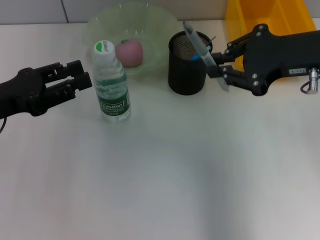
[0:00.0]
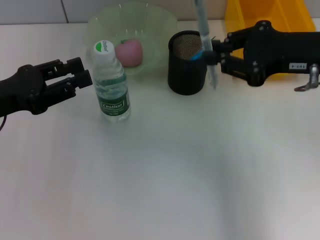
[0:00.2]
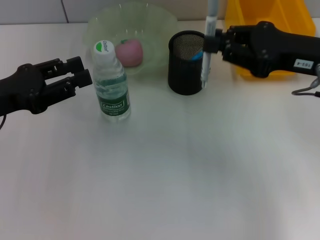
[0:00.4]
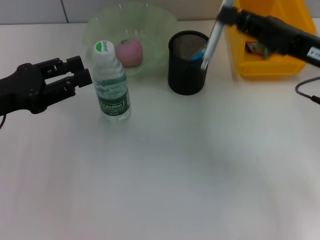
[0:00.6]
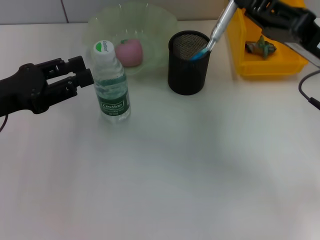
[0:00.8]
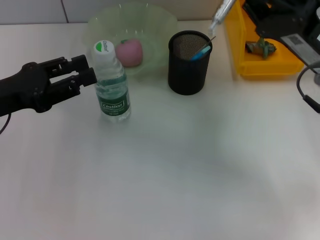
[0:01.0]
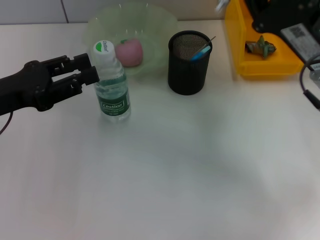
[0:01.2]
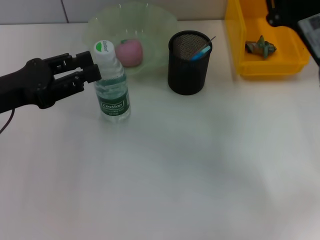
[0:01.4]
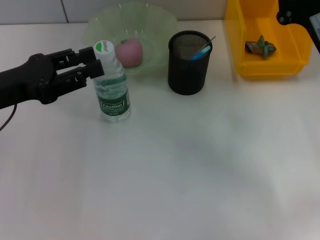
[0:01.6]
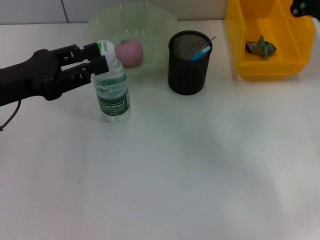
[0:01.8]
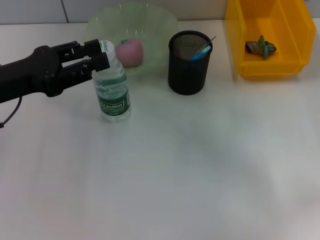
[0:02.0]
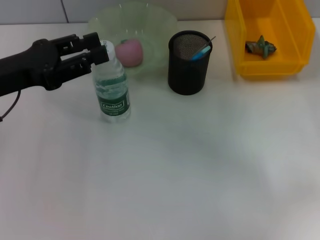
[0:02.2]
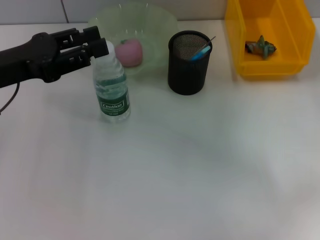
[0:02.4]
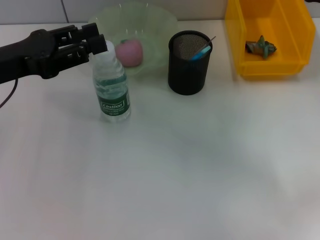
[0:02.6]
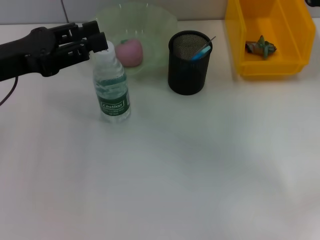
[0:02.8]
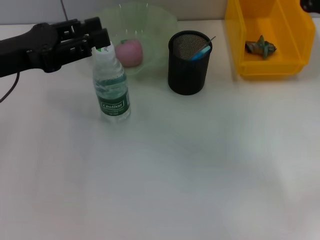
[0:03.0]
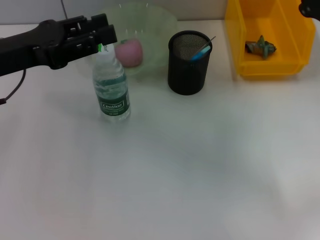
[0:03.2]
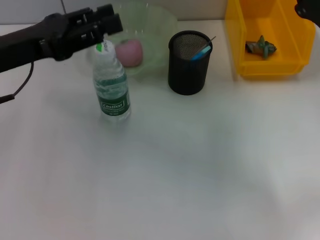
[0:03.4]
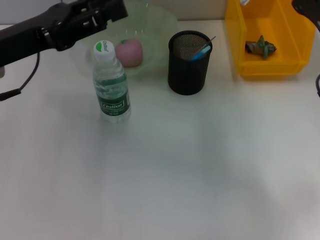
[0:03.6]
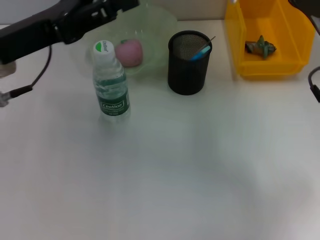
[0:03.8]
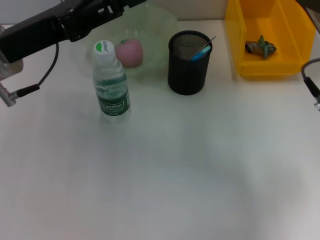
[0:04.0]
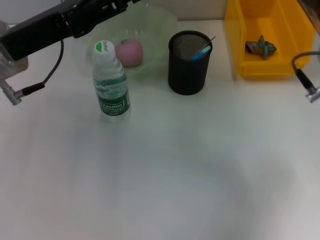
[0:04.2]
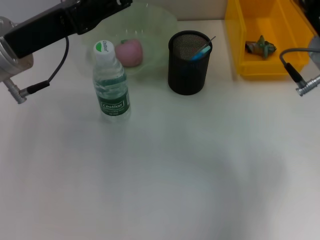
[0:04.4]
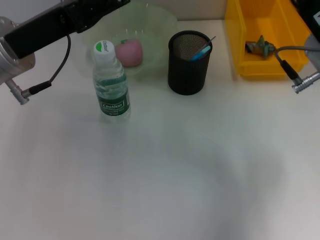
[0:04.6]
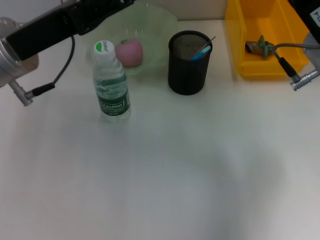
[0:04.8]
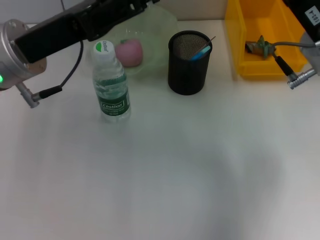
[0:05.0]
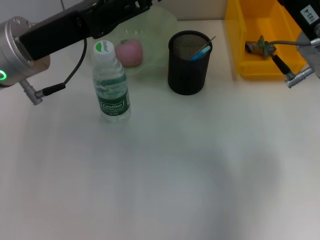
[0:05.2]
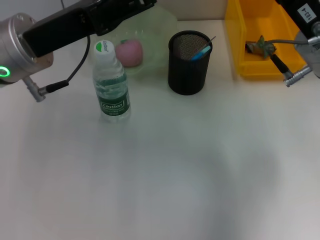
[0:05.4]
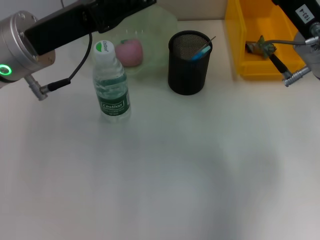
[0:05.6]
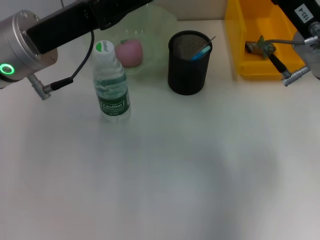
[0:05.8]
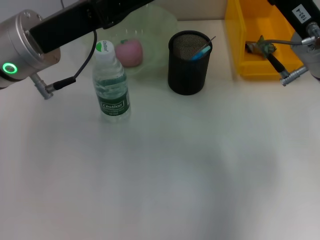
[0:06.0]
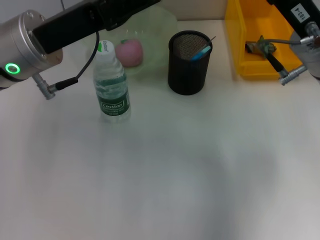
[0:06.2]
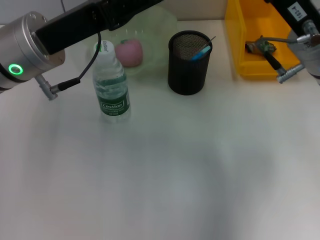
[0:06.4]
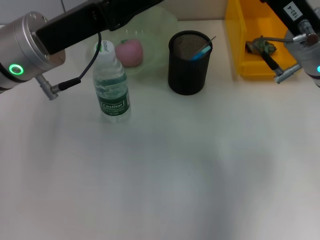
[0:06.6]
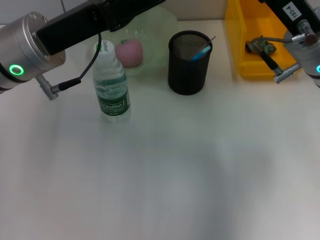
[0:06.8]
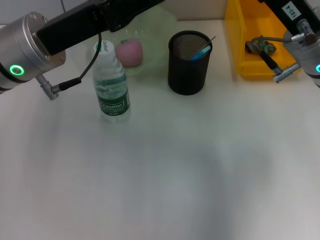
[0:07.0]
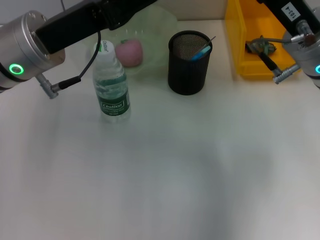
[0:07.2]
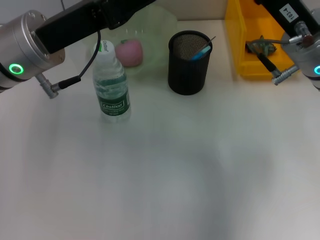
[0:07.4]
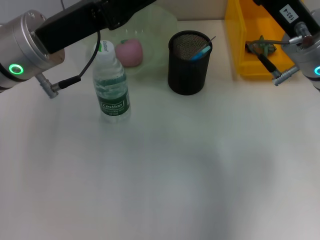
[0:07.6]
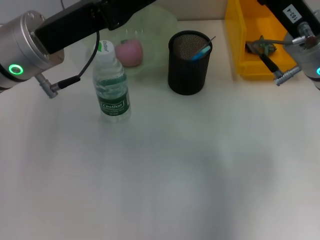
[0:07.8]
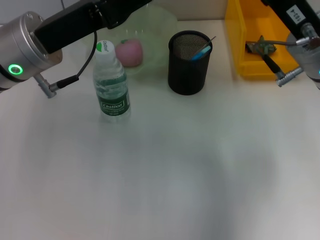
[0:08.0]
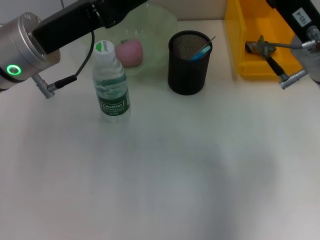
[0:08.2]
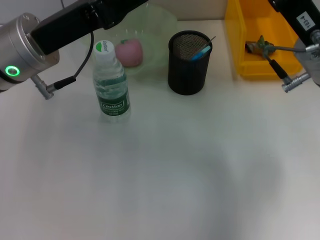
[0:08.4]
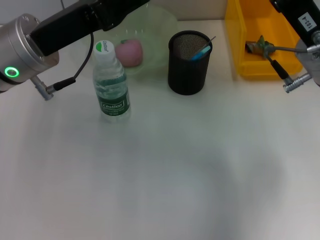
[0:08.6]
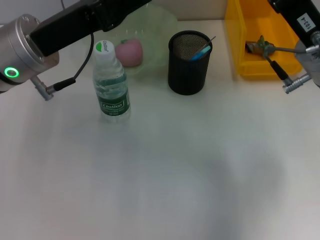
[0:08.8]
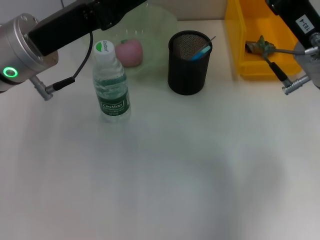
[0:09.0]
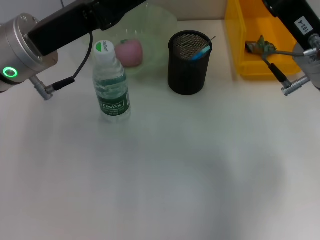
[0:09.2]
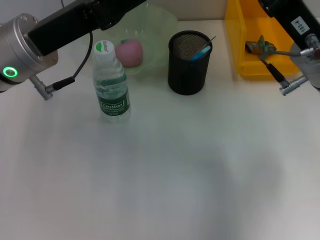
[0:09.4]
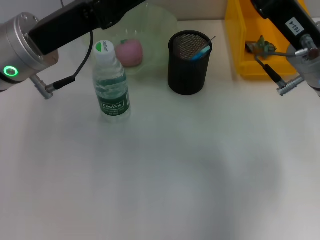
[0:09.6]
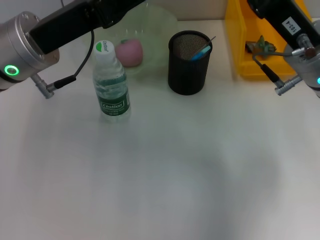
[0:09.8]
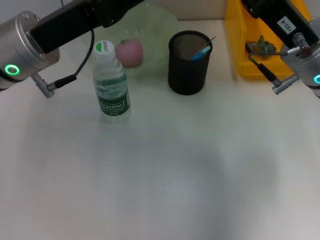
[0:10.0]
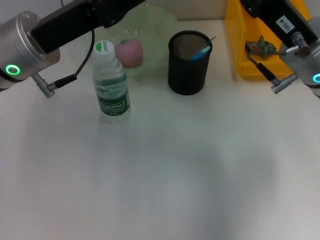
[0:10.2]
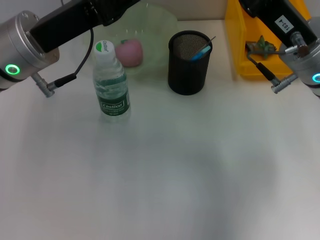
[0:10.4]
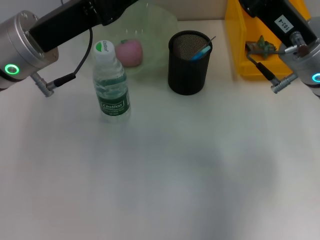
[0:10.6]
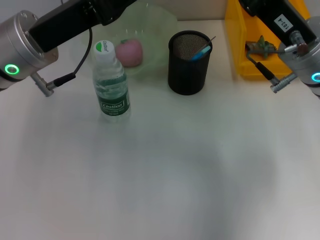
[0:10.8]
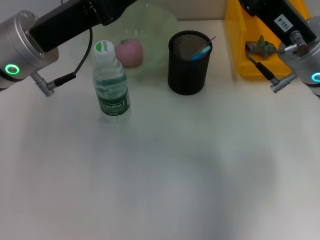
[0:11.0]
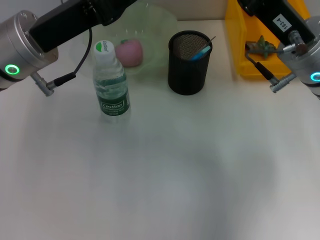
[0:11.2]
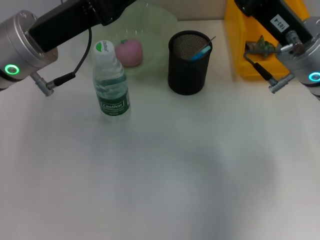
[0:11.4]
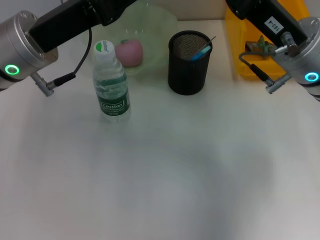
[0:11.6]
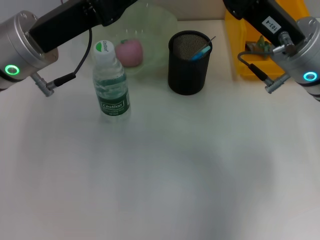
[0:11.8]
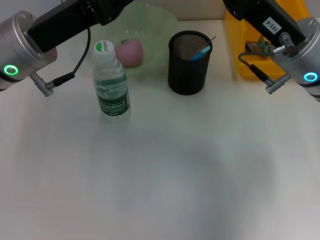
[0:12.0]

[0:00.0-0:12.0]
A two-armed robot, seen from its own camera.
0:00.0 to 0:01.6: The right gripper moves downward, approximately 10 cm.
0:03.0 to 0:04.4: The left gripper travels to the right by roughly 5 cm. The right gripper goes some 5 cm to the left.
0:04.4 to 0:06.0: There are only small adjustments of the grippers.
0:06.0 to 0:07.6: Neither gripper changes place.
0:07.6 to 0:09.0: The grippers stay close to where they were, moving slightly.
0:09.0 to 0:10.4: Neither gripper changes place.
0:10.4 to 0:12.0: The two grippers keep their place.

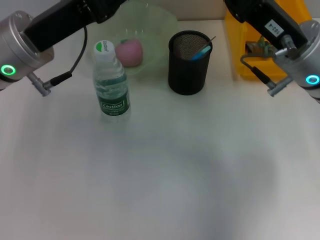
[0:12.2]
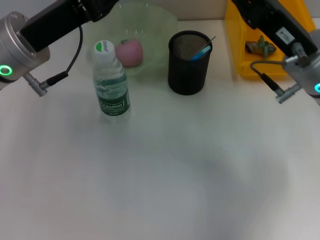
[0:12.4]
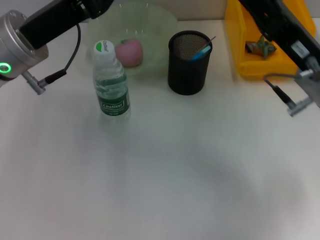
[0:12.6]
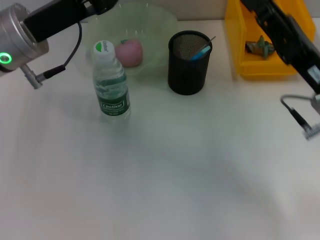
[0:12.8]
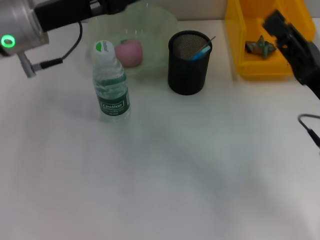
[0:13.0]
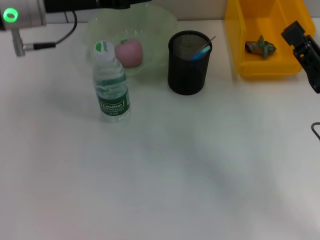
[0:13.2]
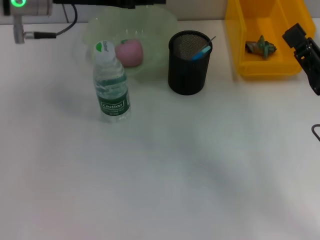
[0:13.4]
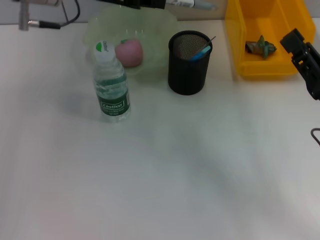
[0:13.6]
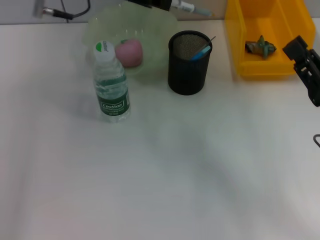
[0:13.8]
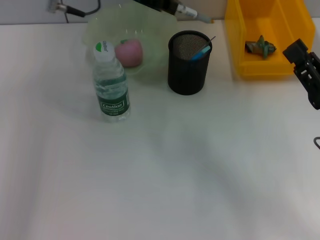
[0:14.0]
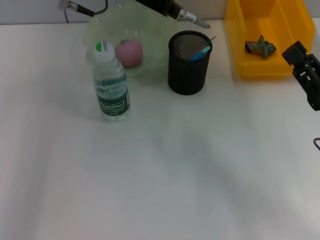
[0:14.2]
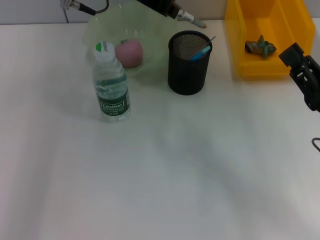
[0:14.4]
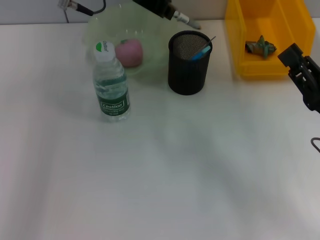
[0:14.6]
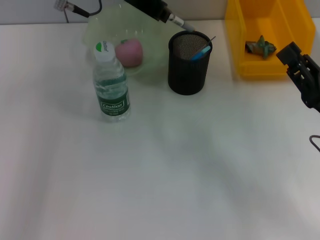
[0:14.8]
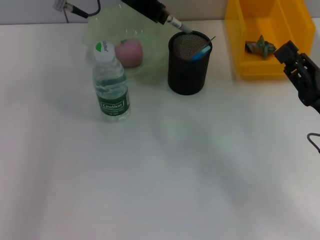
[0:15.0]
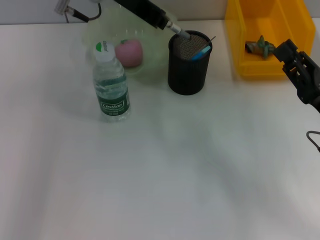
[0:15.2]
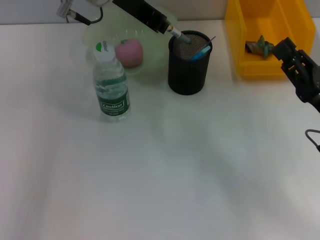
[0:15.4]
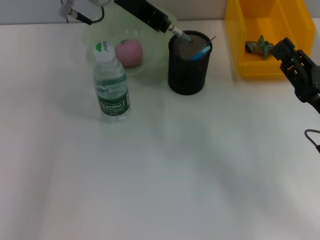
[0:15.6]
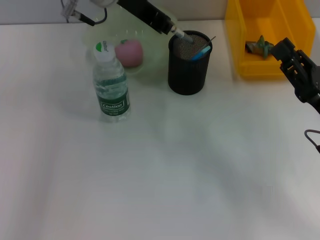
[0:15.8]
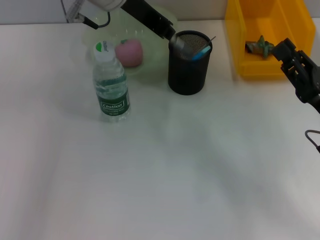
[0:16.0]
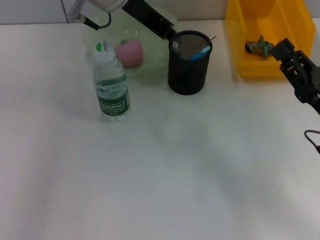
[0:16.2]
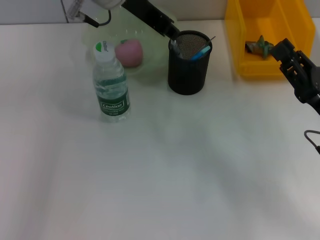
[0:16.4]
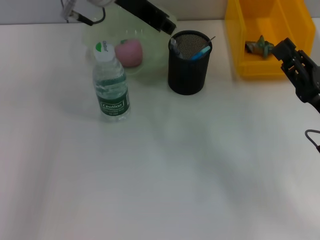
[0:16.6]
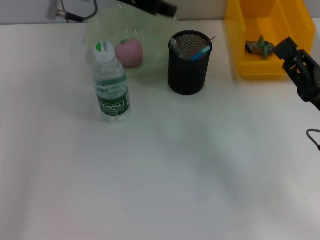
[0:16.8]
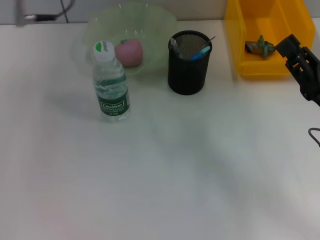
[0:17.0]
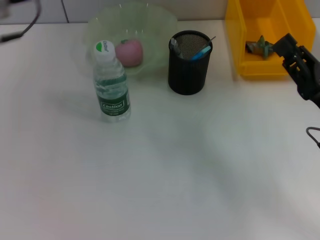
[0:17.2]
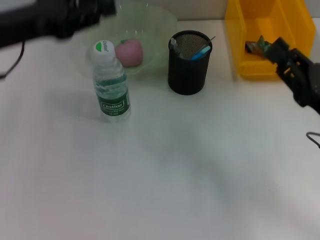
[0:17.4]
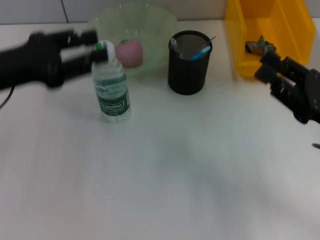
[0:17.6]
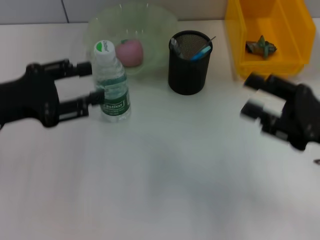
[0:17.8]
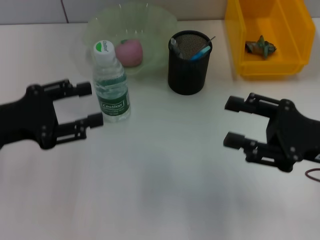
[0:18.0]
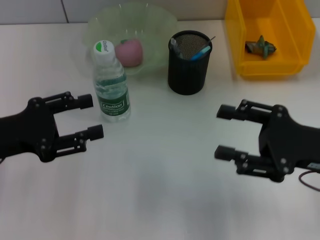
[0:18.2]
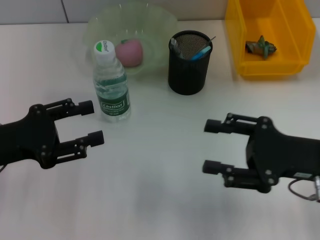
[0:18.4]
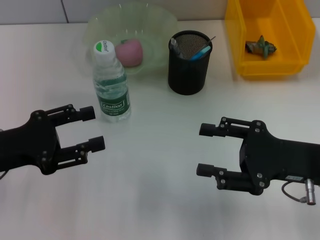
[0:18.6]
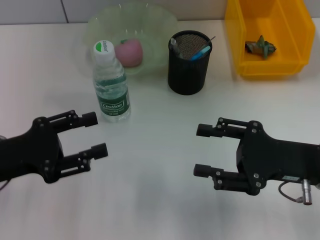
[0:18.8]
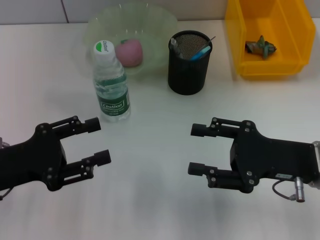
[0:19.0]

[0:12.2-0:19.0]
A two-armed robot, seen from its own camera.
Step, 0:13.4 to 0:16.8: Place the gray spring-action pen into the pen holder with the left hand.
0:12.2 to 0:13.6: The left gripper moves upward and forward, roughly 10 cm. Meanwhile the right gripper moves to the right, backward and downward, some 15 cm.
0:13.6 to 0:15.0: The left gripper goes about 5 cm to the right.
0:15.0 to 0:16.2: The grippers make only small movements.
0:16.2 to 0:17.6: The left gripper moves to the left and backward, approximately 20 cm, and opens its fingers.
0:17.6 to 0:19.0: The right gripper opens. The left gripper moves downward and backward, some 15 cm.

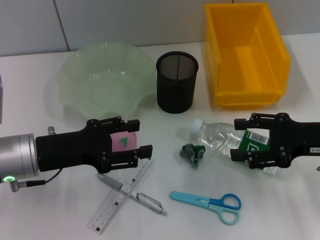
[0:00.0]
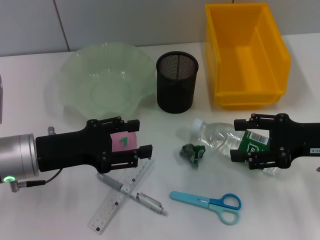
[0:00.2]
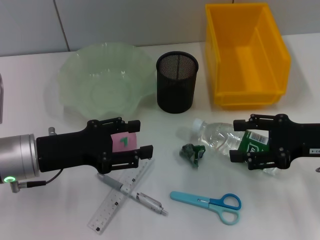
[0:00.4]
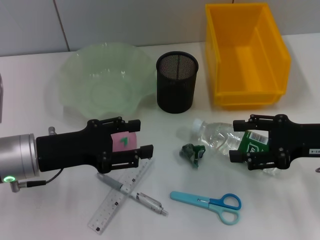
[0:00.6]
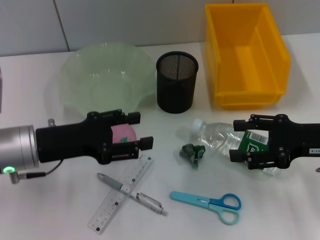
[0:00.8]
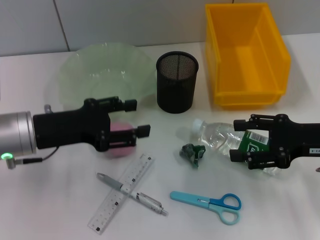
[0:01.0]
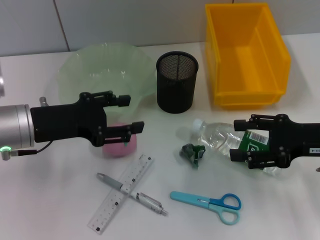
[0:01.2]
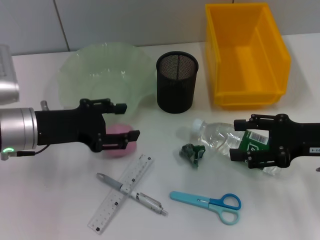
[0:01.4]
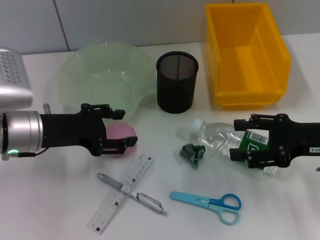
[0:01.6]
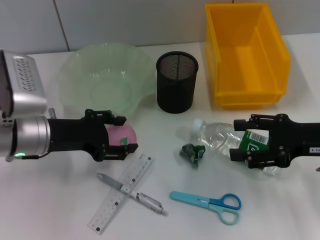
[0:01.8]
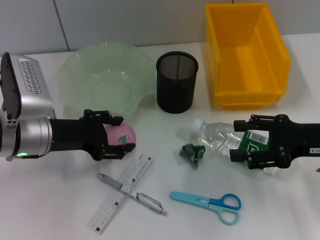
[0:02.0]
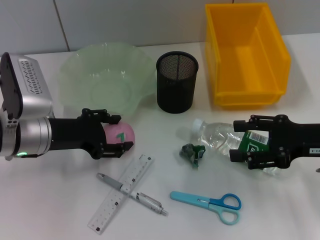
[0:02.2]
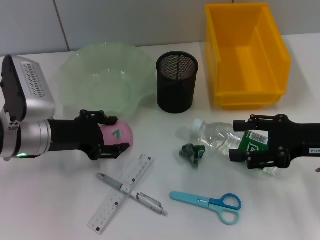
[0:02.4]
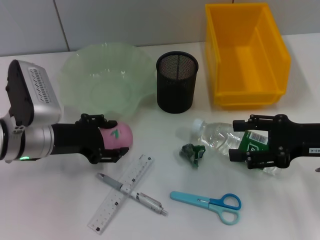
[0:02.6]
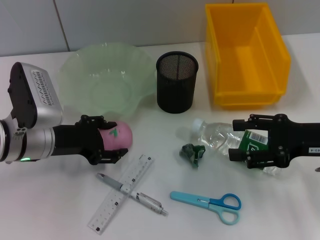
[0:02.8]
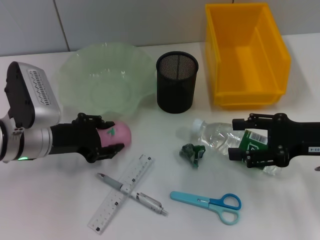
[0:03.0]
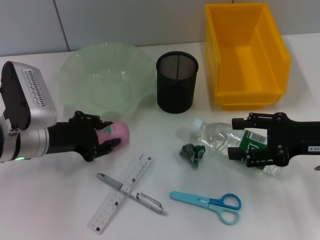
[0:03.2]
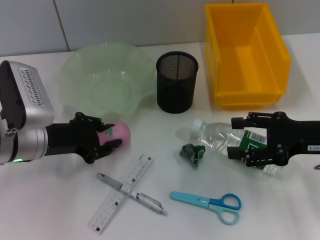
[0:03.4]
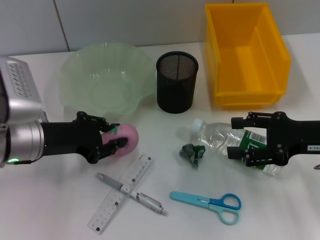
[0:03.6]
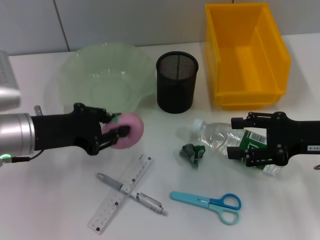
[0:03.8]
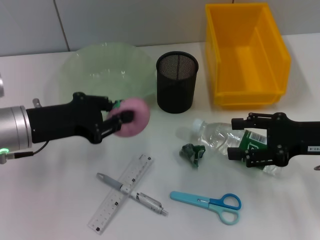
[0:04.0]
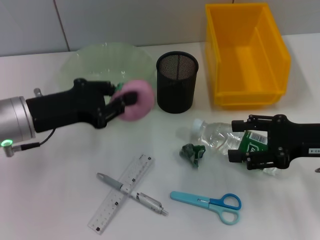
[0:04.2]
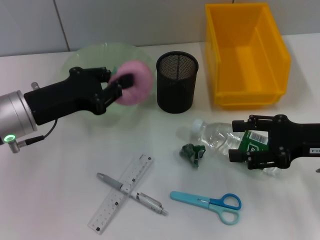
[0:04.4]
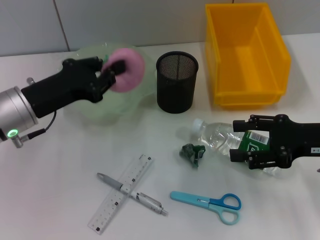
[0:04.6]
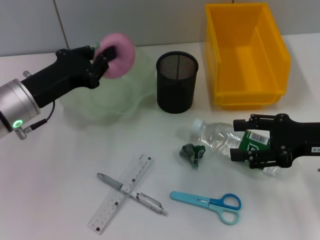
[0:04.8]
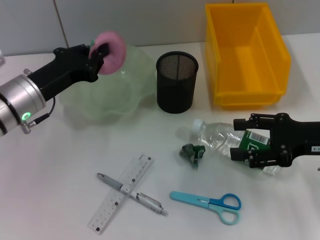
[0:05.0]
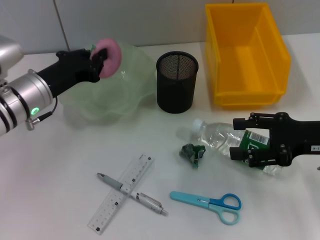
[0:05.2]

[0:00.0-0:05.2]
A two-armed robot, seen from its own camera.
Step, 0:00.0 to 0:03.4: Grab the peach with the left hand.
0:01.8 to 0:03.4: The grippers make only small movements.
0:03.4 to 0:05.2: The left gripper closes its fingers.
